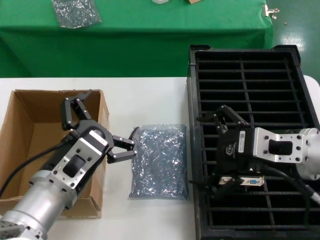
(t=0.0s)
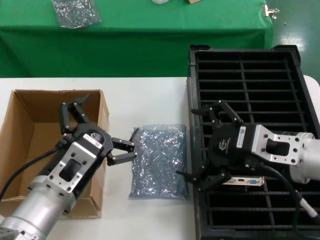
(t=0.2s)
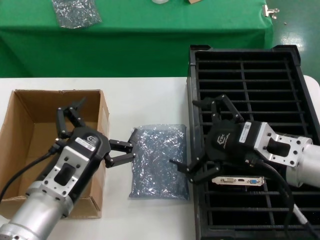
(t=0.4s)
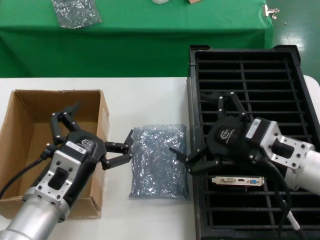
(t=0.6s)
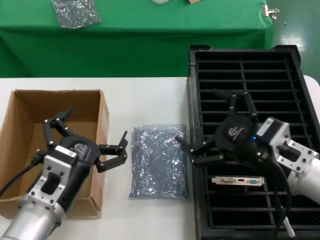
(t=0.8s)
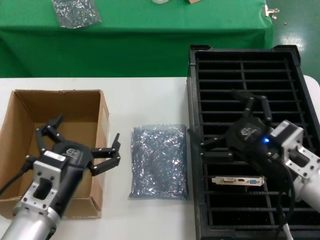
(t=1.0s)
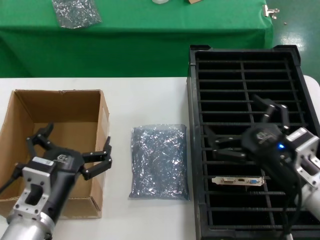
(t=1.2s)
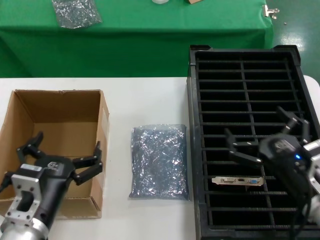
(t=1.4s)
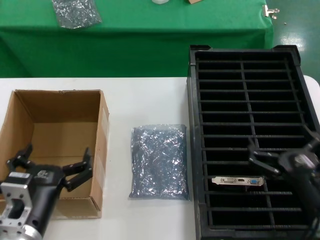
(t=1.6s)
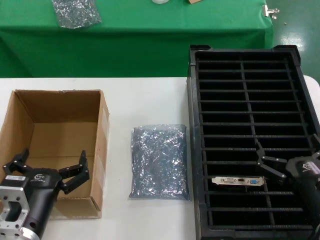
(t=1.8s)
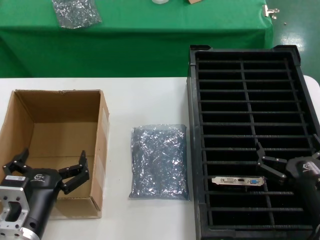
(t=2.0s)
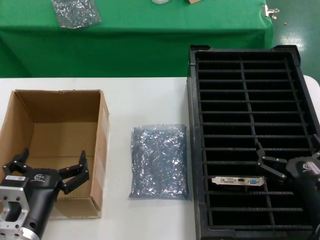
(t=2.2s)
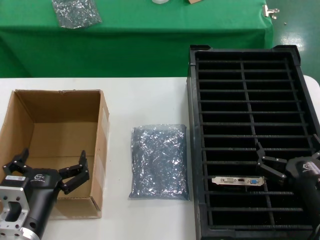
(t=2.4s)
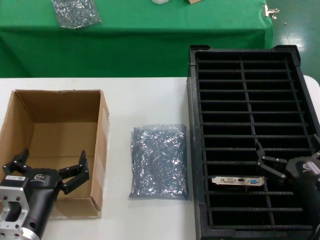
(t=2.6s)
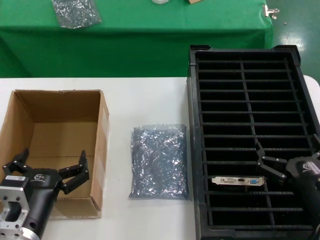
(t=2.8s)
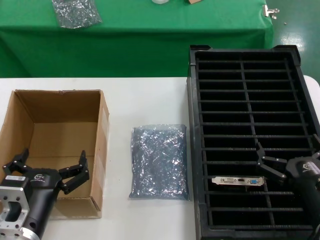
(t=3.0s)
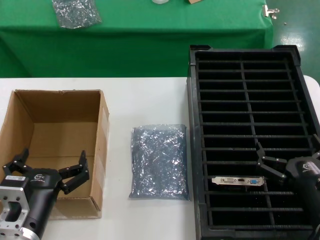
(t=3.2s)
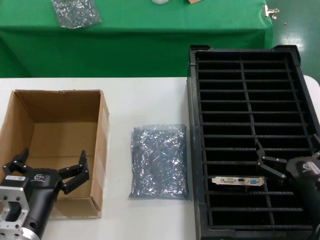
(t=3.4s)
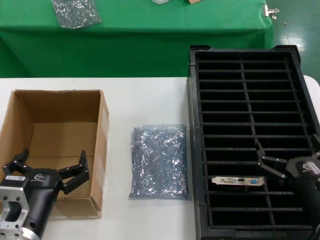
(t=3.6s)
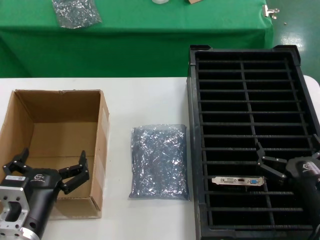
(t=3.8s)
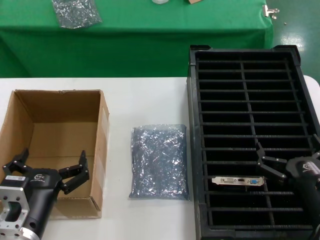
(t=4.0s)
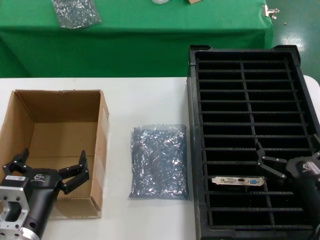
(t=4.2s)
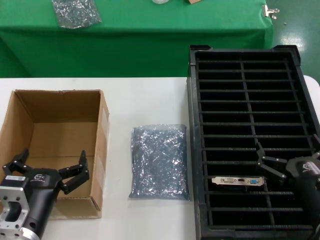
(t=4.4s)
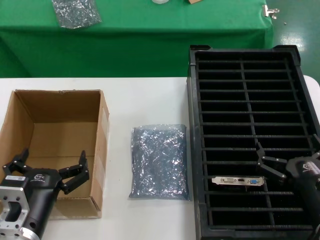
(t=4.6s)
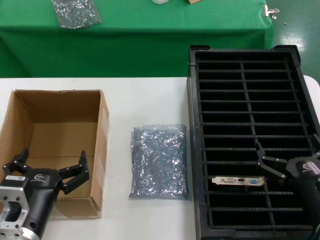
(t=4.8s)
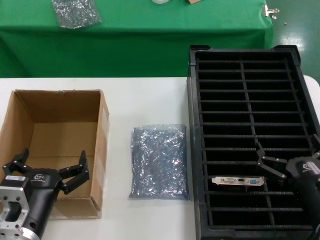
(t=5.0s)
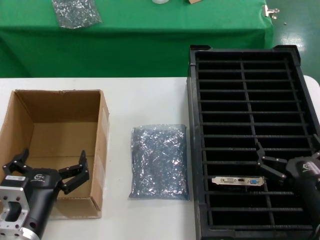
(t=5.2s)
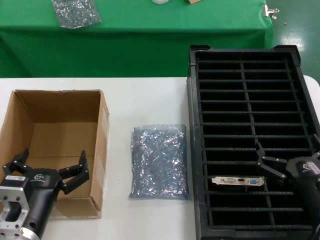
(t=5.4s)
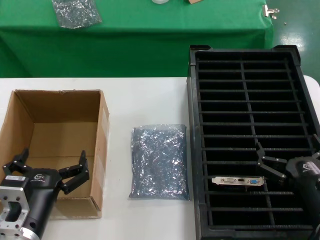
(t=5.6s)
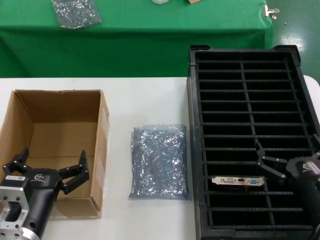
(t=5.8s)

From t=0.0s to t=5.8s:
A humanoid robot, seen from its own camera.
Task of the whole recording: take out graphics card from box remove packaging put into black container.
From t=0.0s to t=1.4s: The right hand heads downward, covering approximately 15 cm. The left hand heads downward, covering roughly 10 cm.
From t=1.4s to t=2.8s: The right hand ends up approximately 5 cm from where it was.
From t=2.8s to t=5.8s: Both hands stay about where they are.
